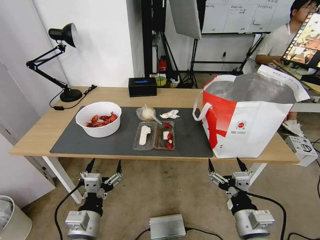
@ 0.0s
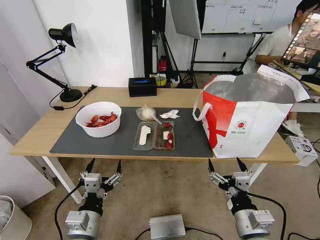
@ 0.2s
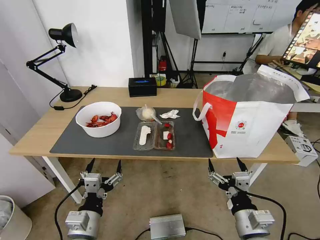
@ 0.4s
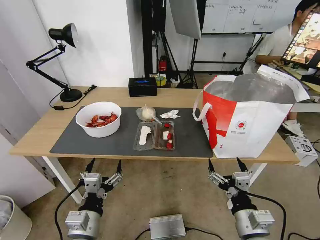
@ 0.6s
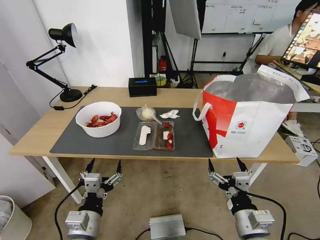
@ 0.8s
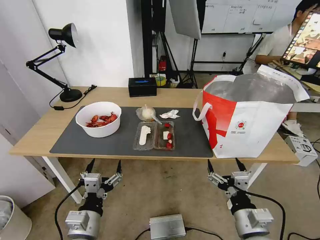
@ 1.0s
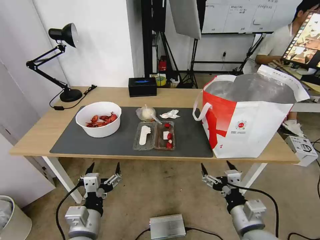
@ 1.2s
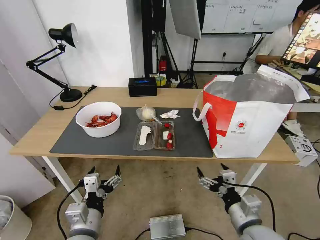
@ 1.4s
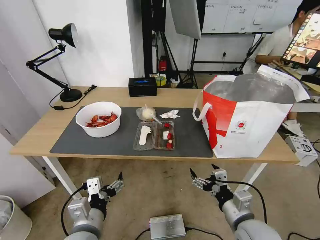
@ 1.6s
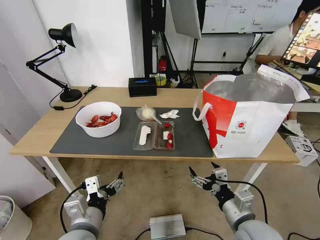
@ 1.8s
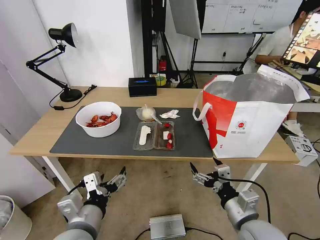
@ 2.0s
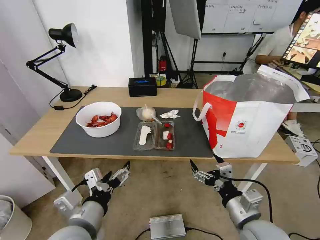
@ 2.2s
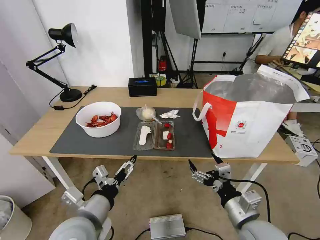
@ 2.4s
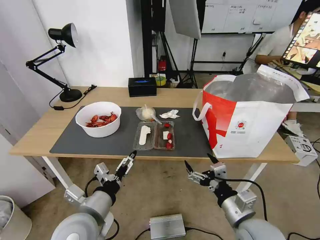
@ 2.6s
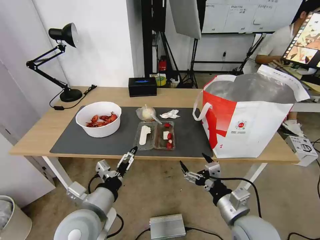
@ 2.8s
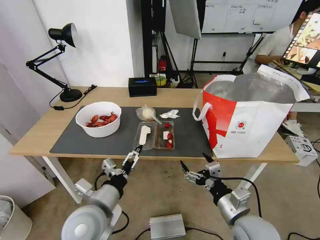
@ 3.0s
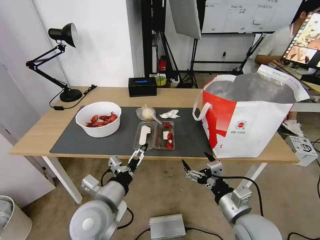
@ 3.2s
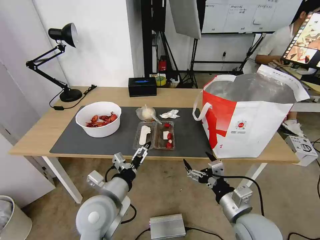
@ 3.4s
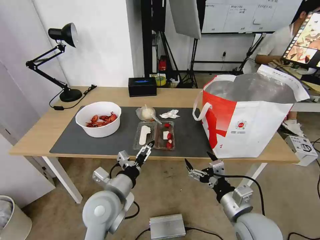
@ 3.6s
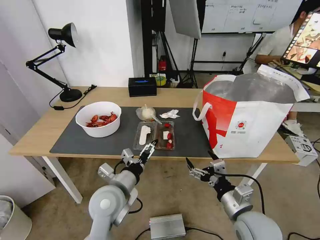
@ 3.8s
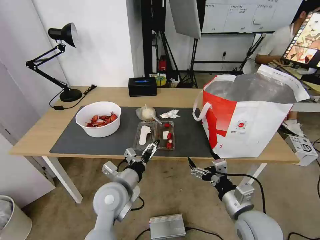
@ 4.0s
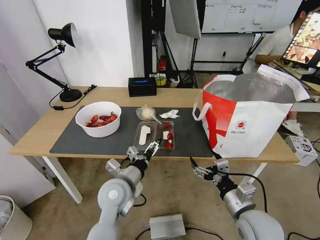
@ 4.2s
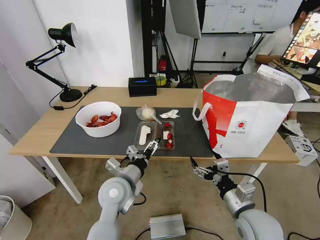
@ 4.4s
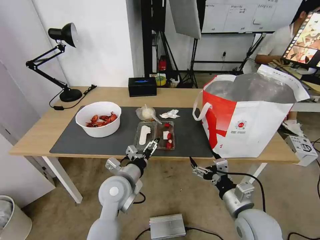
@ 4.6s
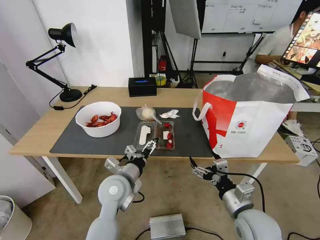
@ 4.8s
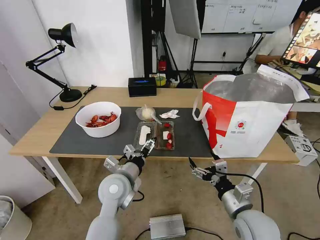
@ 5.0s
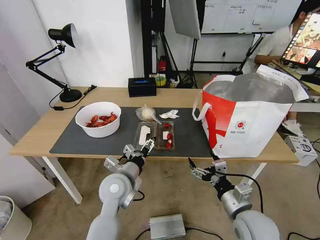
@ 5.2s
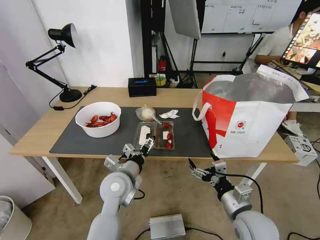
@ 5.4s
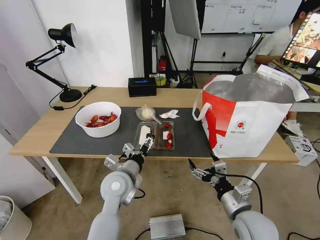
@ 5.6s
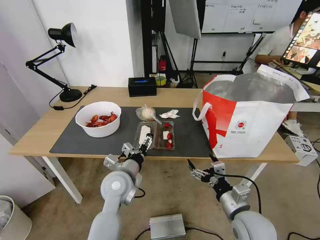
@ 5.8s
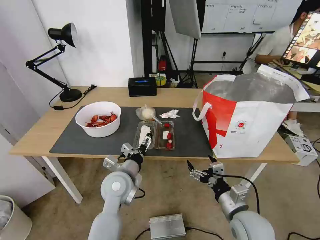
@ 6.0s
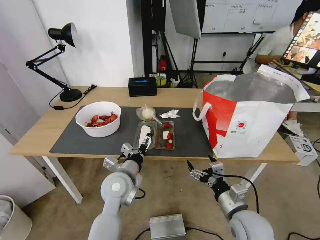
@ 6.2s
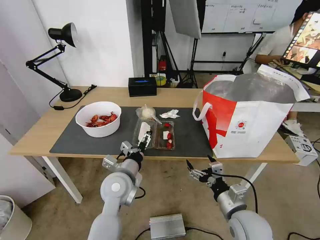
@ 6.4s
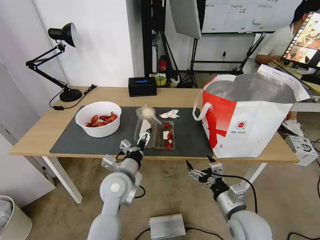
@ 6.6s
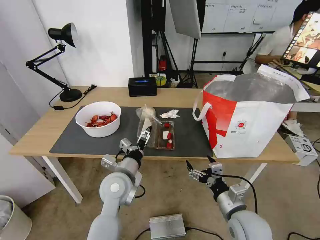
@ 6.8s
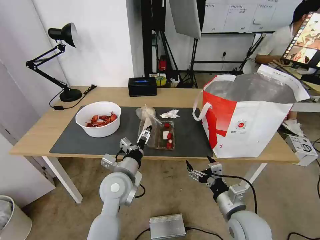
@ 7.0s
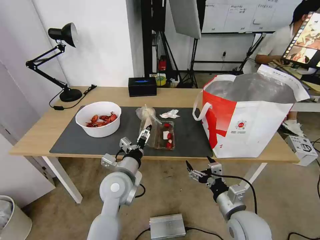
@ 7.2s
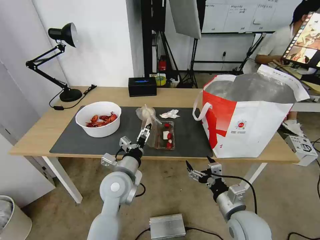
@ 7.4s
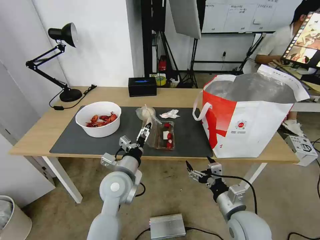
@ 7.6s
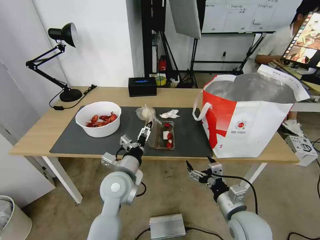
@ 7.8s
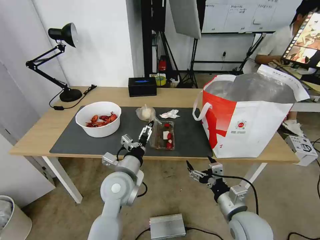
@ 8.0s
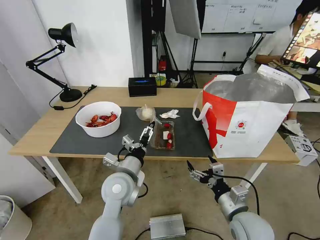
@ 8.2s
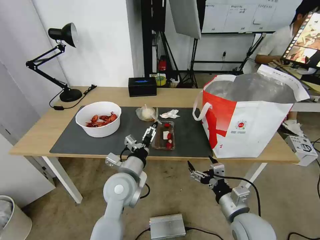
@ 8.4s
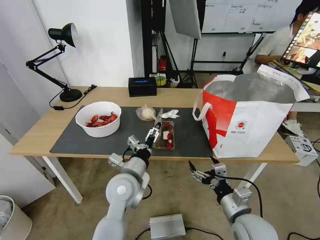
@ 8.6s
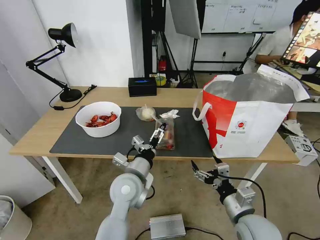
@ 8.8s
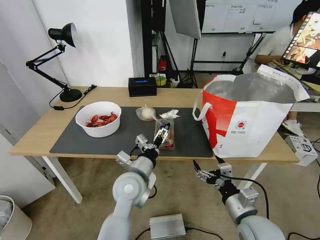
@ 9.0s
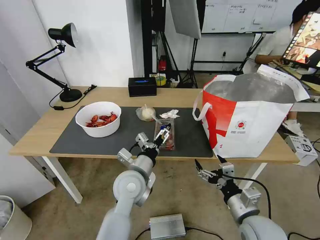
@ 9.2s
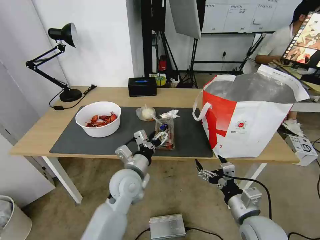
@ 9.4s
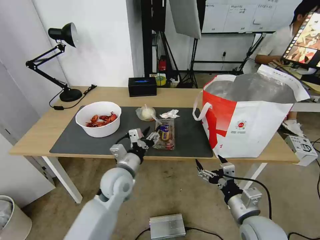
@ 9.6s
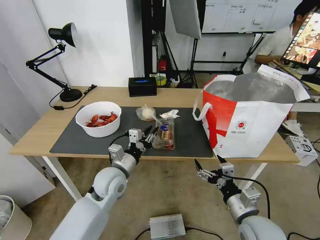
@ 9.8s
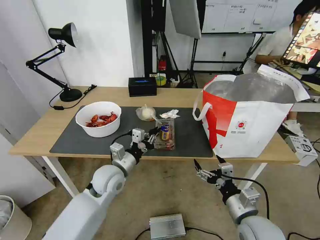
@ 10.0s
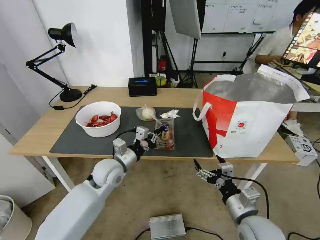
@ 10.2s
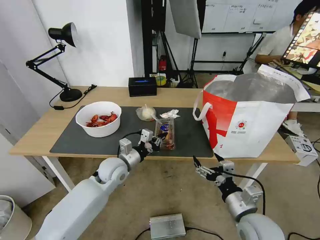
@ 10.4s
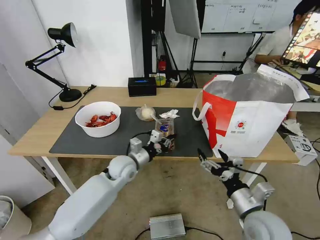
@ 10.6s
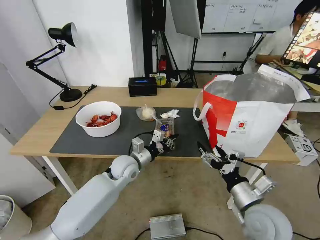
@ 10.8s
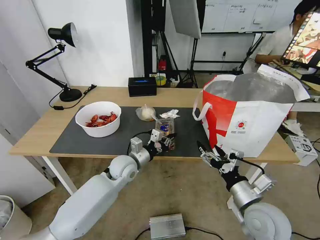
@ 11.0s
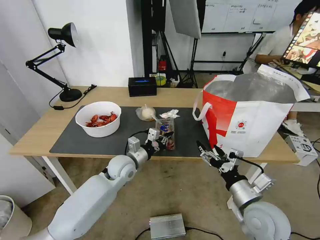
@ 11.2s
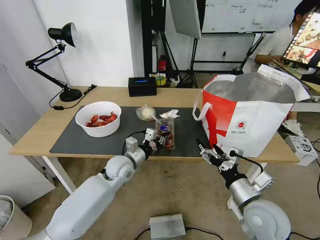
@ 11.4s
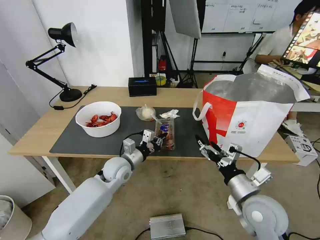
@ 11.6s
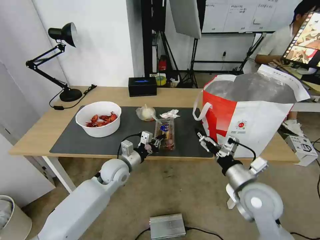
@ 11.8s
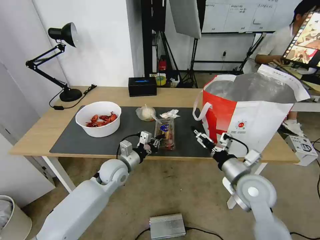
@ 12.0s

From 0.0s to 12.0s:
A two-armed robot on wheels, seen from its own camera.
Task of the whole recording: Pick up the trash from the table and place it into the takeout bag.
From 1.6s to 3.0s: The left gripper shifts by approximately 5 cm.
From 3.0s to 4.4s: The left gripper goes some 10 cm forward.
From 4.4s to 9.0s: The grippers stay close to where they were, moving slightly.
From 9.0s to 10.4s: The left gripper travels forward and to the left by about 10 cm, and closes its fingers.
From 10.4s to 12.0s: The right gripper heads forward, covering approximately 10 cm.

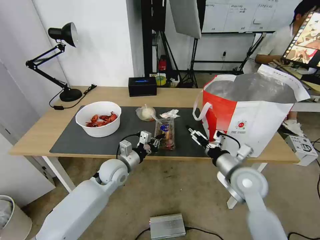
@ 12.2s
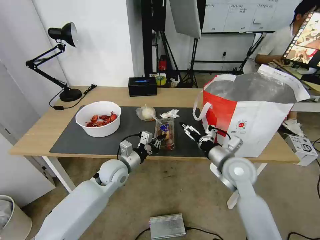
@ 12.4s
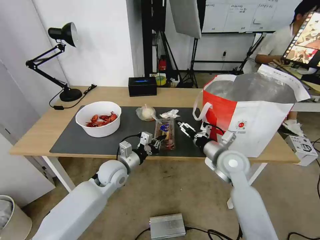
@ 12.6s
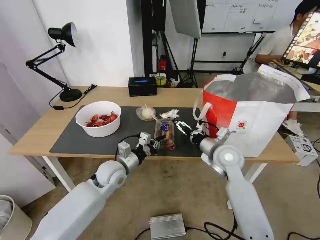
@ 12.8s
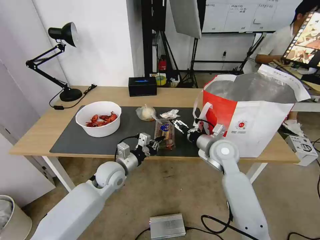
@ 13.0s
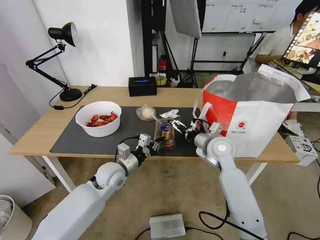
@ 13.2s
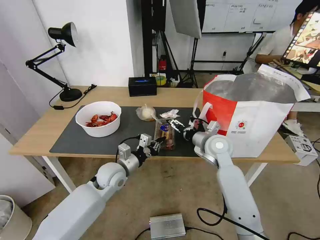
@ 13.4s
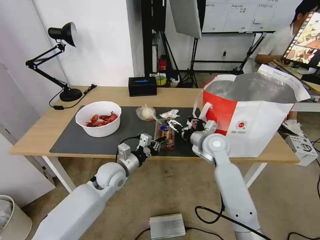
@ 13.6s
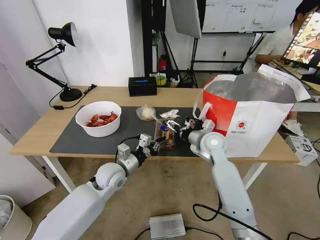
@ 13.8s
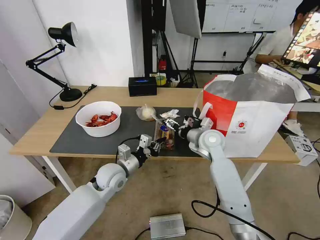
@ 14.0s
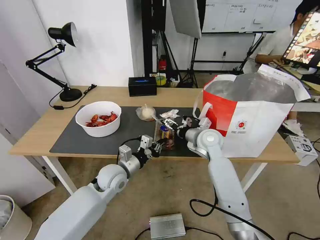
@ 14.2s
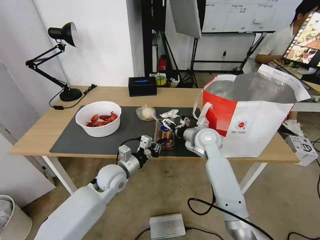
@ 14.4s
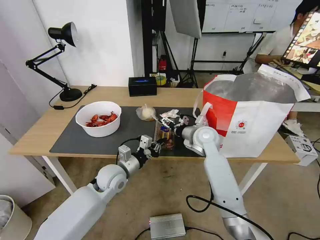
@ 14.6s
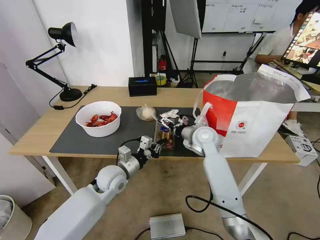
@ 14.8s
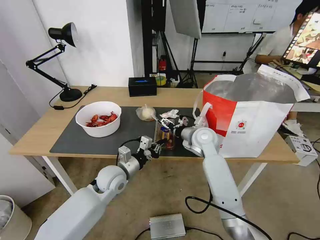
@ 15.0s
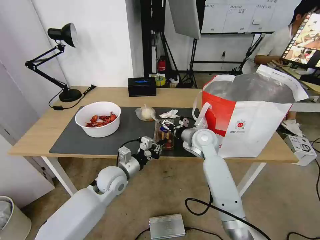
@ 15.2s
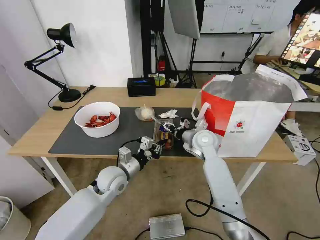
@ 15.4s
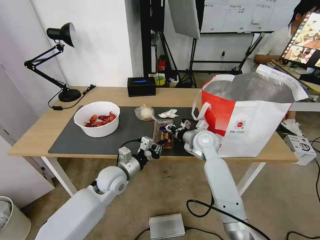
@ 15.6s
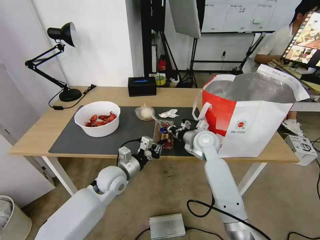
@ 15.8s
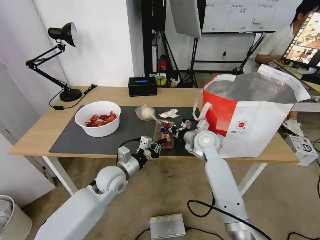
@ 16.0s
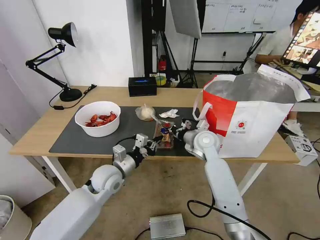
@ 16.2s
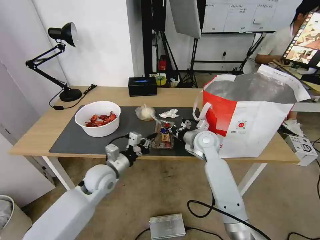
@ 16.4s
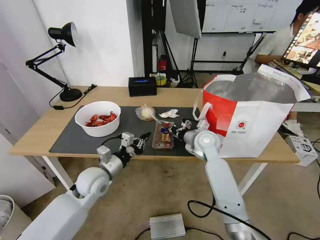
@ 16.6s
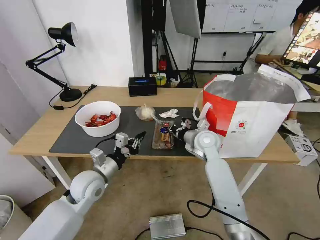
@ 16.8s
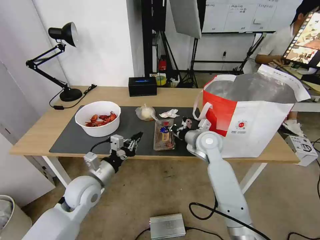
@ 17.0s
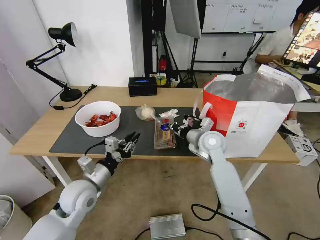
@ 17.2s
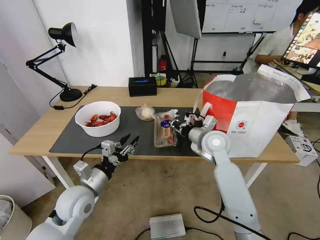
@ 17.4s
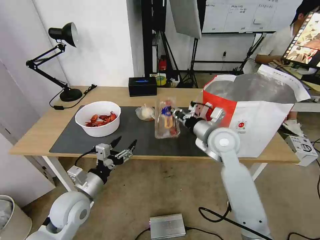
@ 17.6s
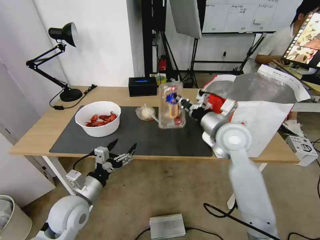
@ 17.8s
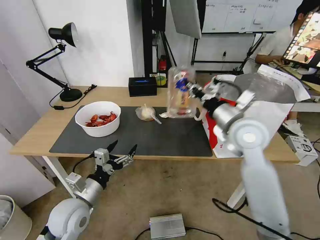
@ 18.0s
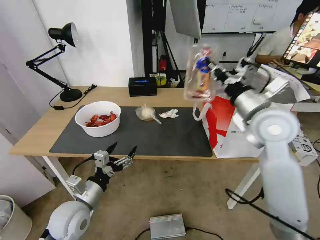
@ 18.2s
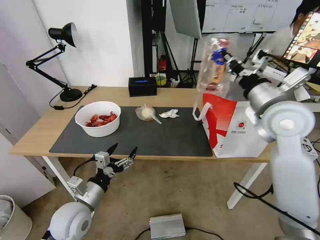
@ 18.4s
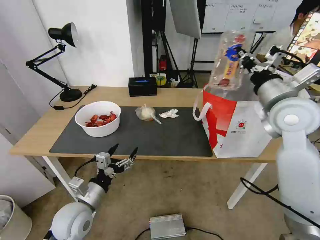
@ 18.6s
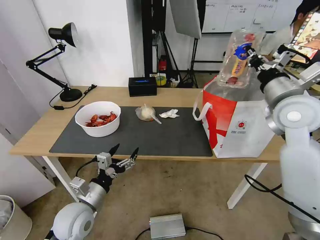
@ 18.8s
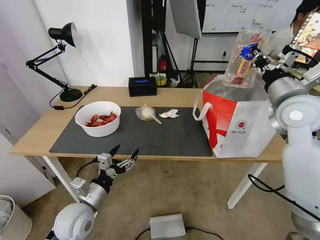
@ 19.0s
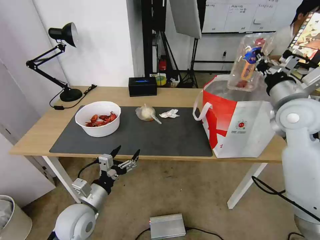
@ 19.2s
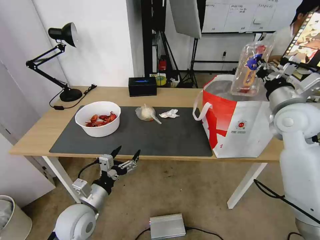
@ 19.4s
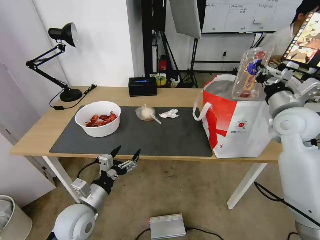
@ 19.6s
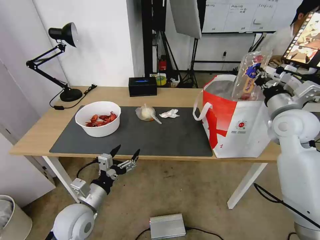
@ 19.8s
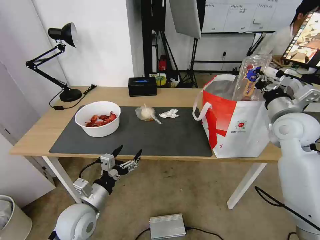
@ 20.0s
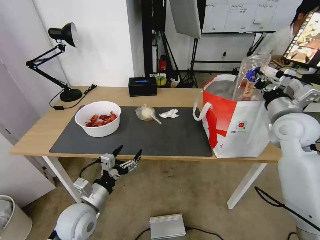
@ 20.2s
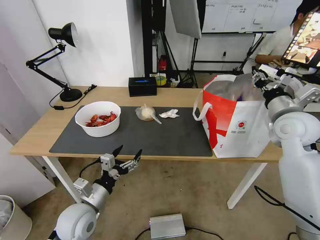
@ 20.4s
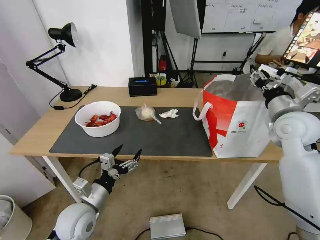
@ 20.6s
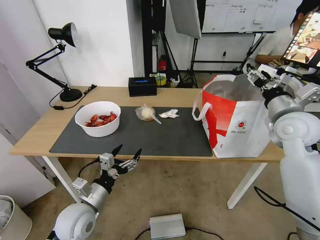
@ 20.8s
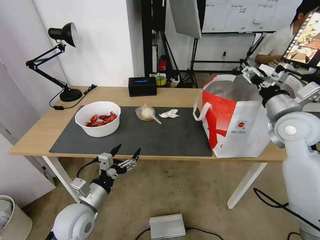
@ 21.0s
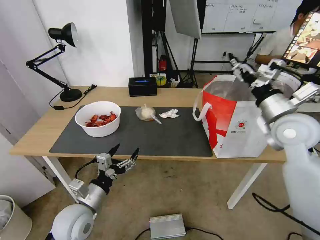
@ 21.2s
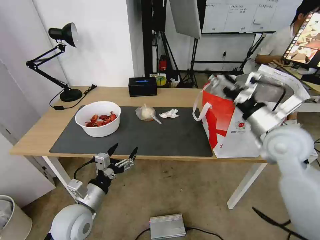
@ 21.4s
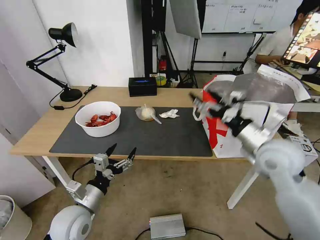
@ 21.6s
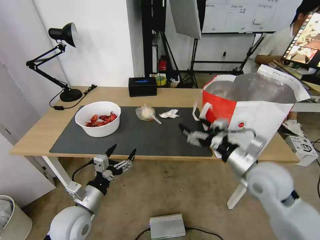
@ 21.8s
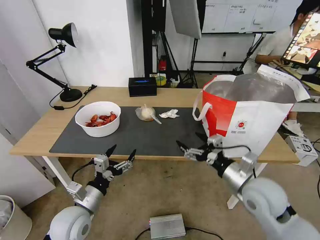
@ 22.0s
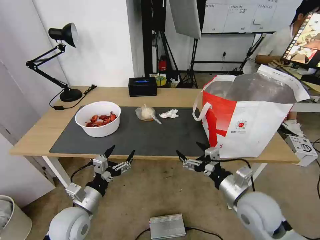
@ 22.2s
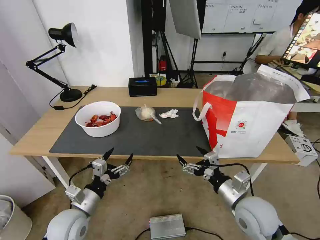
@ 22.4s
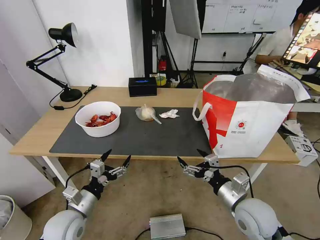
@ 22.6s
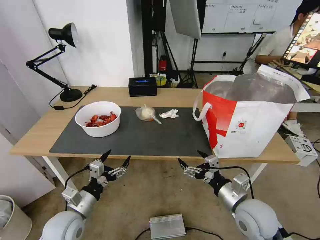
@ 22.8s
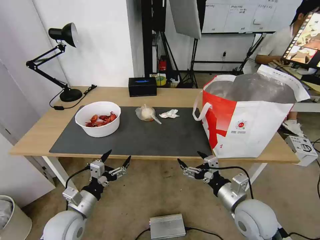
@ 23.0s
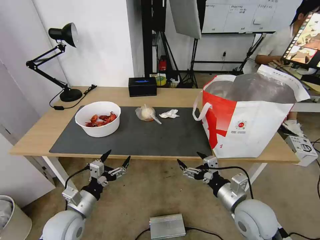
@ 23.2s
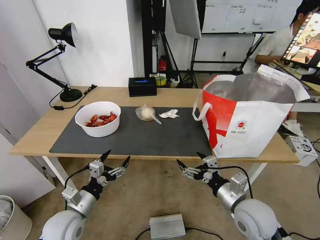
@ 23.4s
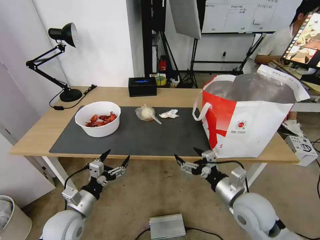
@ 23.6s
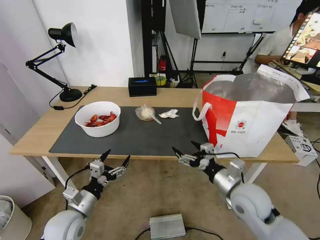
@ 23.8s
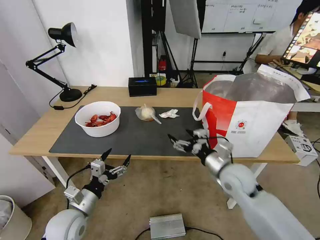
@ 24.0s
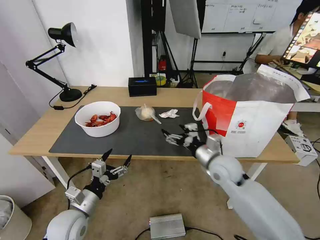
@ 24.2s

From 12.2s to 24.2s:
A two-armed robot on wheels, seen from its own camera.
Task of the whole recording: Pick up the trash from the table and place it into the takeout bag.
From 12.2s to 13.8s: The right gripper travels forward and to the left by some 15 cm.
From 13.8s to 15.2s: The grippers make only small movements.
From 15.2s to 16.6s: The left gripper is displaced to the left by about 5 cm. Meanwhile the right gripper closes its fingers.
From 16.6s to 18.2s: The right gripper is displaced upward, to the right and backward by roughly 20 cm, while the left gripper shifts about 10 cm backward, and opens its fingers.
From 18.2s to 19.8s: The right gripper heads to the right, covering approximately 10 cm.
From 19.8s to 21.2s: The right gripper opens its fingers.
From 21.2s to 22.6s: The right gripper shifts some 25 cm downward, backward and to the left.
From 22.6s to 24.2s: The right gripper moves forward, approximately 15 cm.
